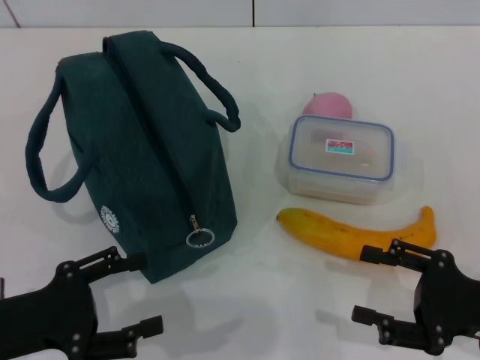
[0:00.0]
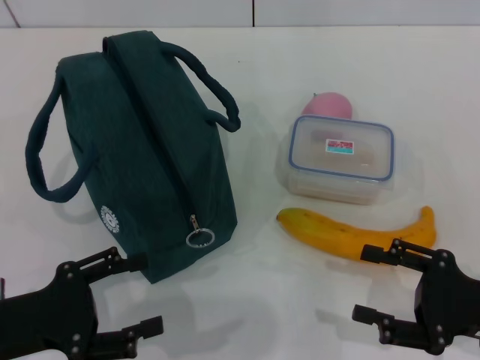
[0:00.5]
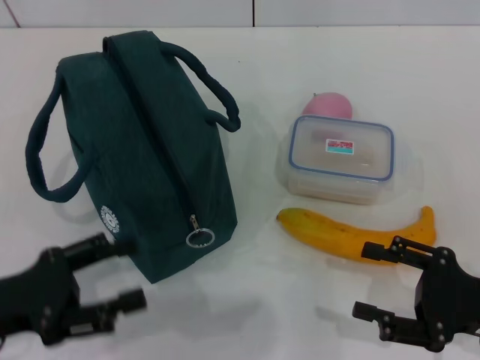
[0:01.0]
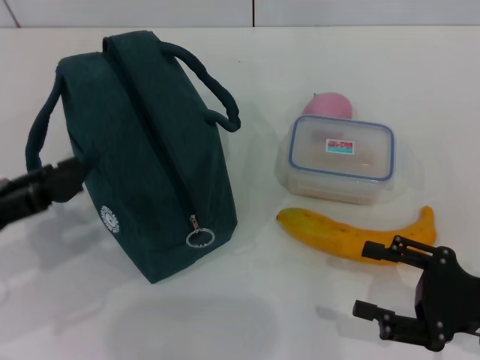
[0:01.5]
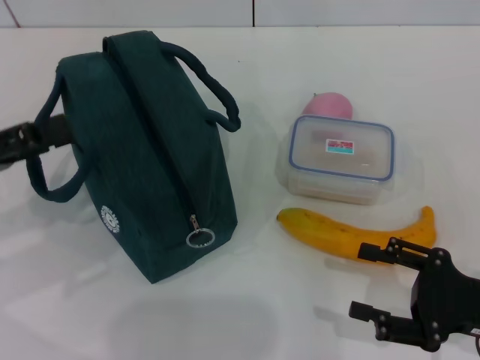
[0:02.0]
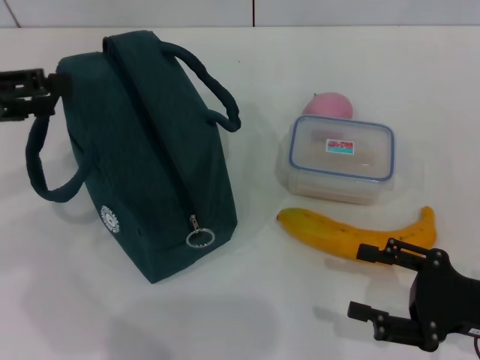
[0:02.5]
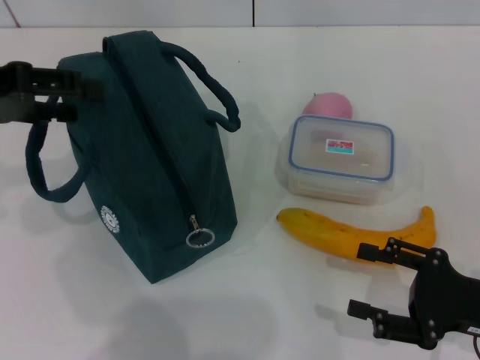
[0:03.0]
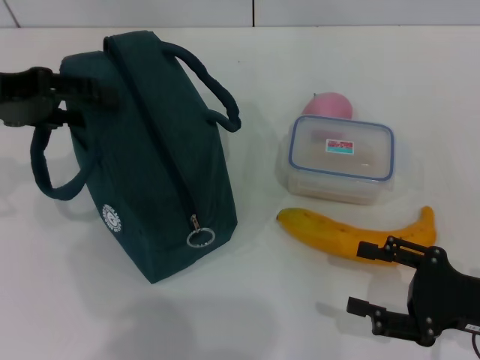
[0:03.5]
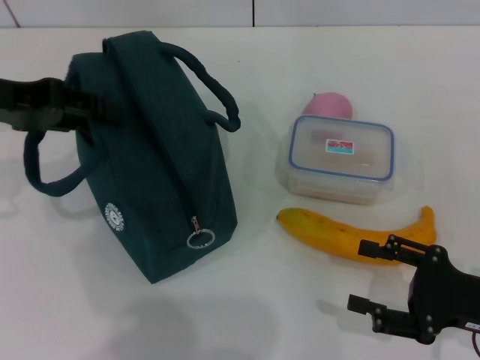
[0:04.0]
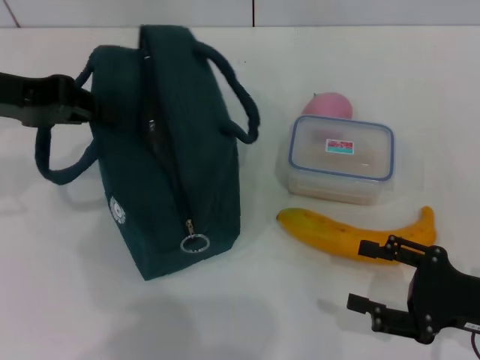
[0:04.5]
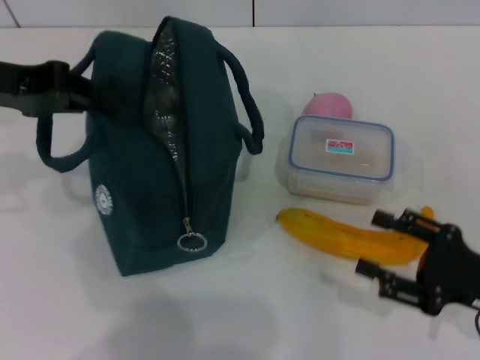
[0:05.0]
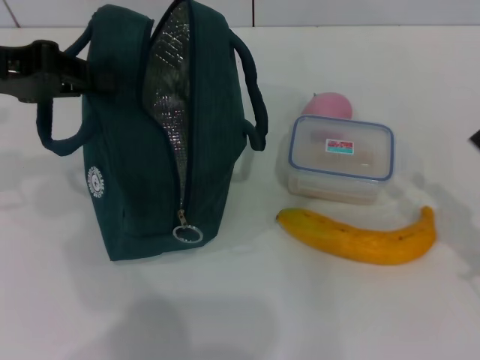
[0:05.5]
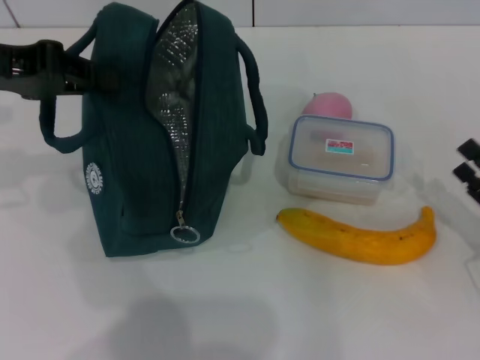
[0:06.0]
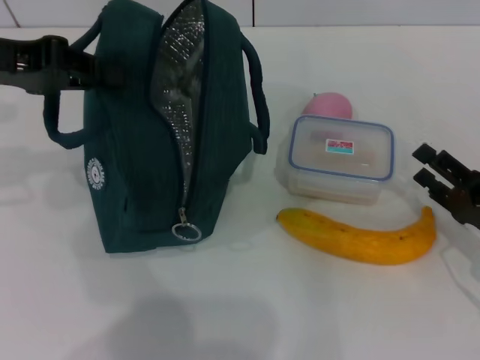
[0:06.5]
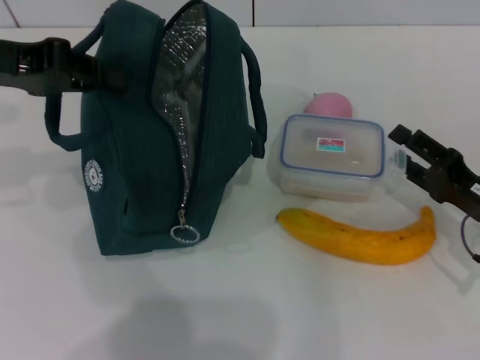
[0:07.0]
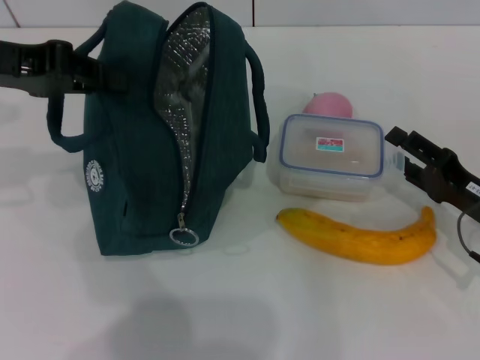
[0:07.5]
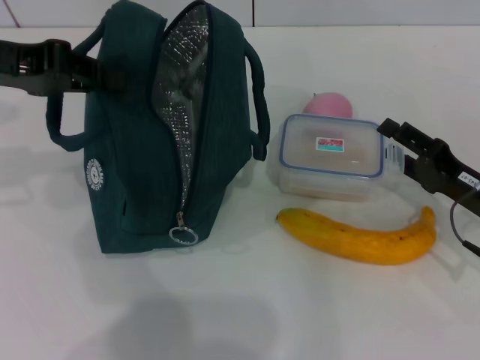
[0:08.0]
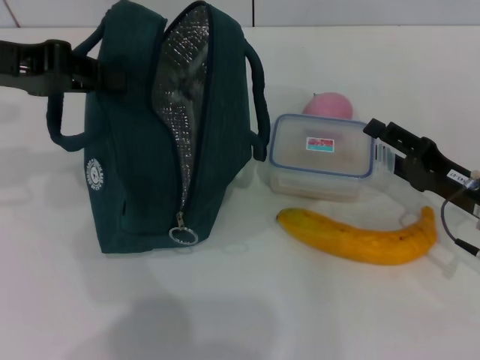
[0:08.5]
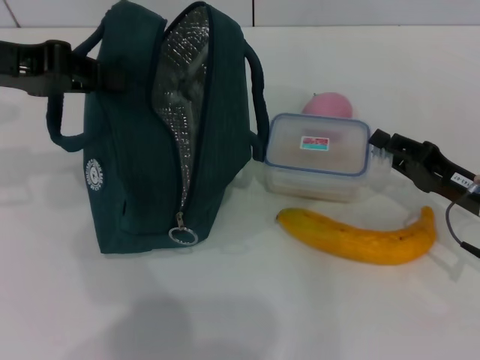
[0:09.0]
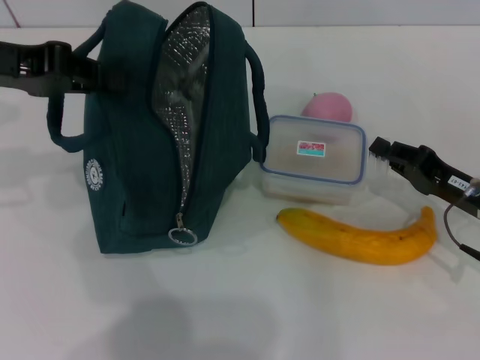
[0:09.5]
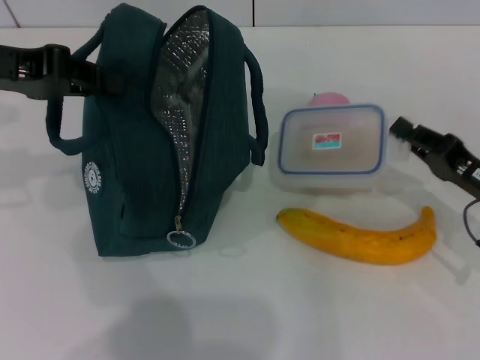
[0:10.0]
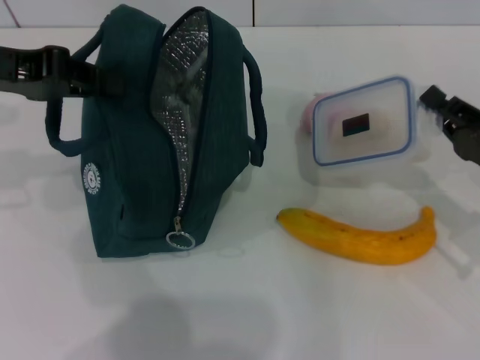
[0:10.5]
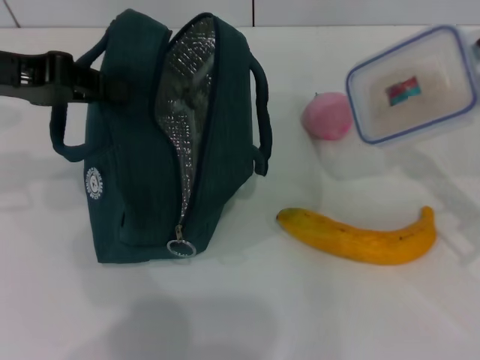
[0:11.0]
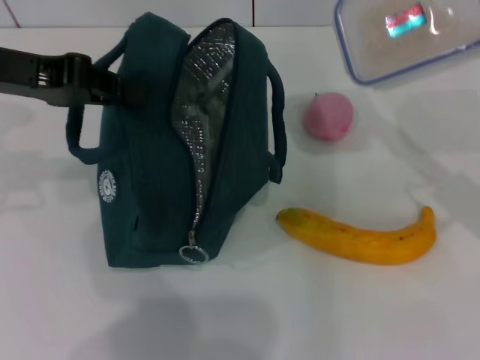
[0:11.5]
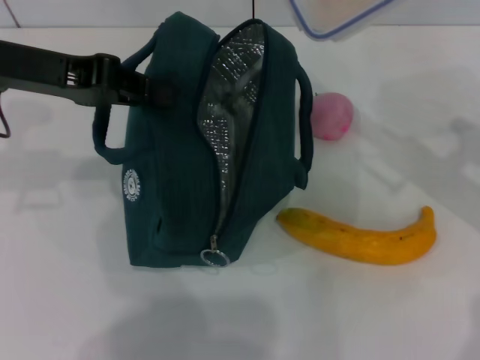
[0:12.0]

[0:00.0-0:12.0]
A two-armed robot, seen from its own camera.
Step, 0.0 to 5.0 s: Hold the lunch bag with your left hand.
Step, 6.0 to 9.0 s: Pick up the lunch box with your right hand.
0.0 to 2.0 s: The left gripper heads upward, forward and to the left, covering some 10 cm.
2.0 to 4.0 s: The left gripper goes roughly 10 cm forward and upward.
4.0 to 6.0 s: The left gripper closes up.
6.0 to 8.0 s: The right gripper travels forward by about 5 cm.
8.0 to 10.0 s: The right gripper closes.
10.0 to 12.0 s: The right gripper shifts roughly 15 cm upward and forward.

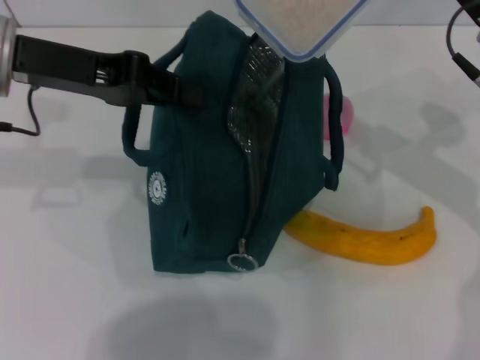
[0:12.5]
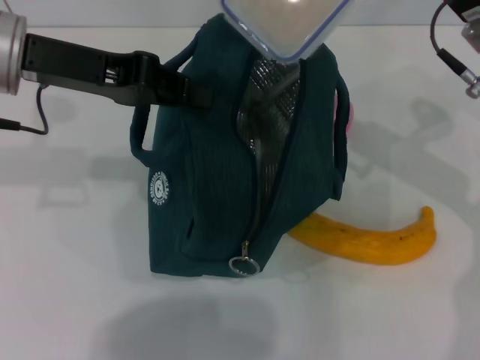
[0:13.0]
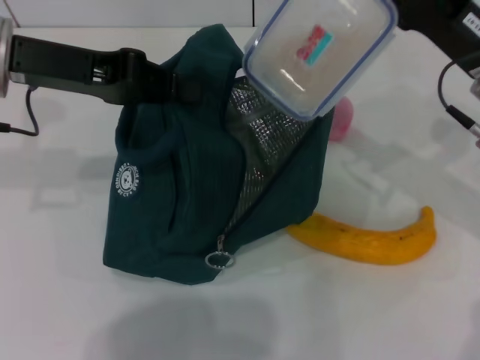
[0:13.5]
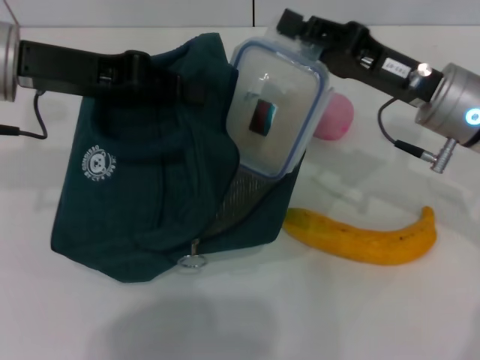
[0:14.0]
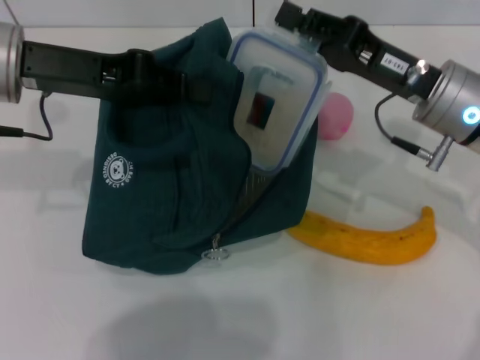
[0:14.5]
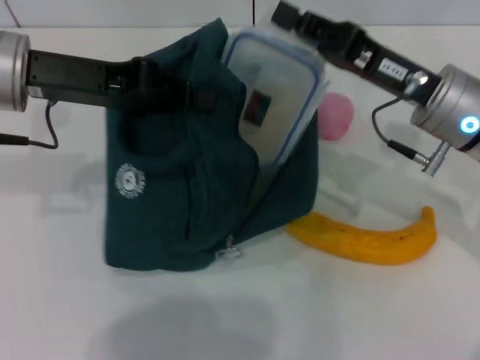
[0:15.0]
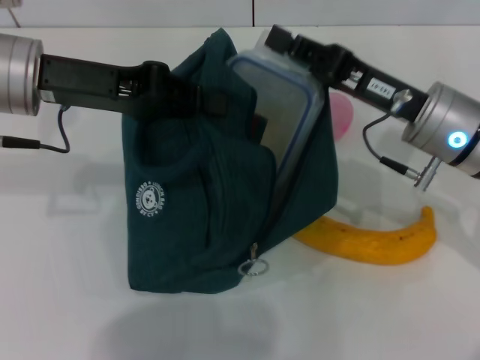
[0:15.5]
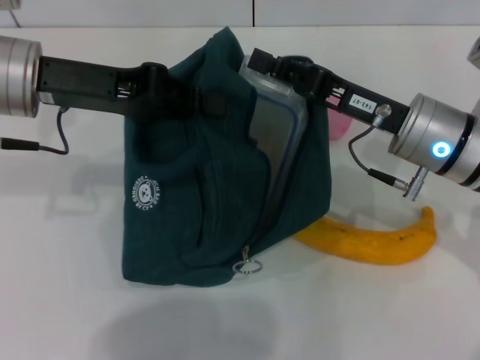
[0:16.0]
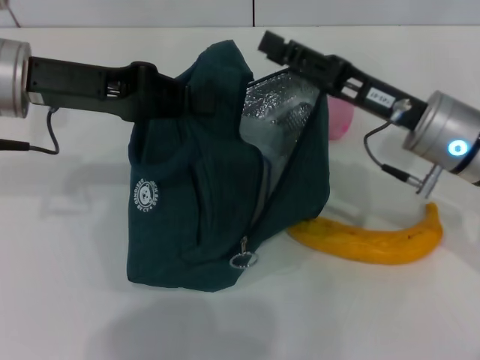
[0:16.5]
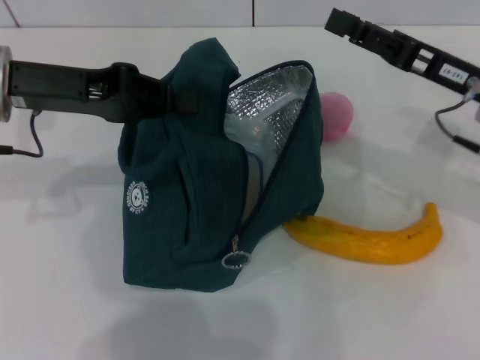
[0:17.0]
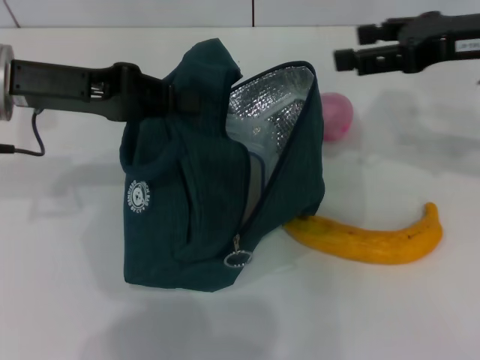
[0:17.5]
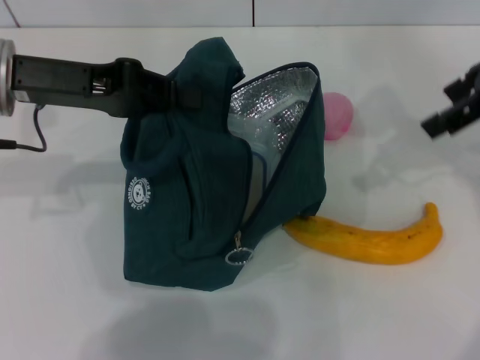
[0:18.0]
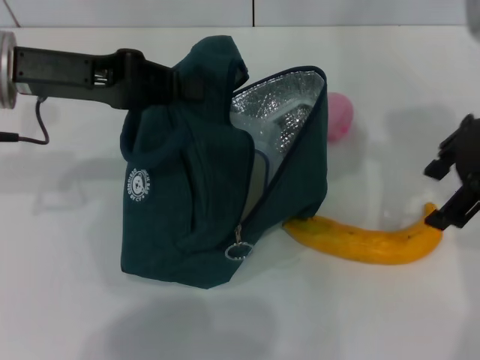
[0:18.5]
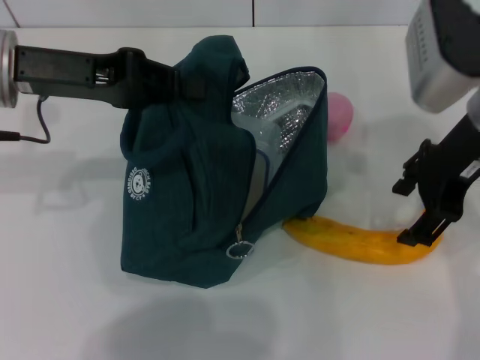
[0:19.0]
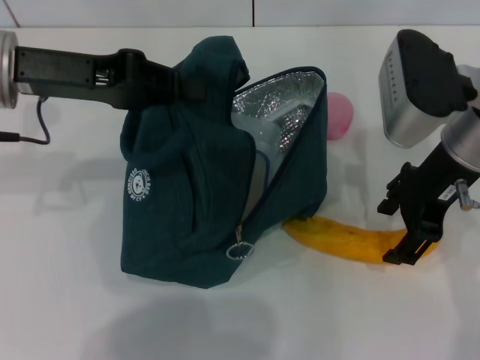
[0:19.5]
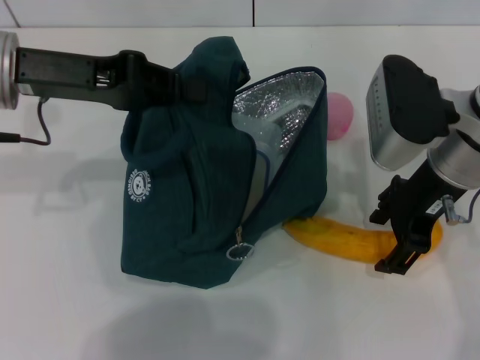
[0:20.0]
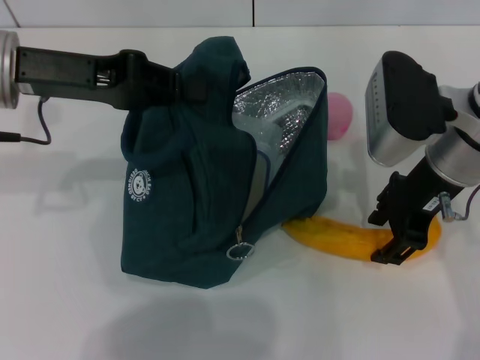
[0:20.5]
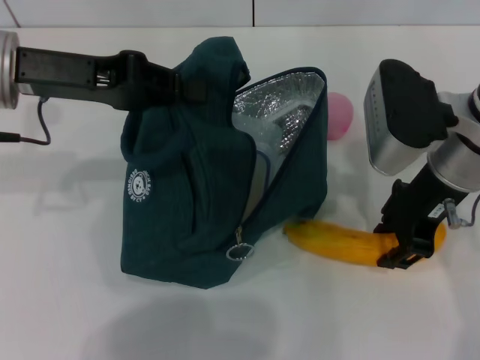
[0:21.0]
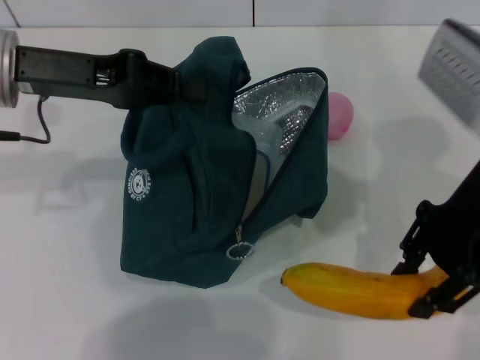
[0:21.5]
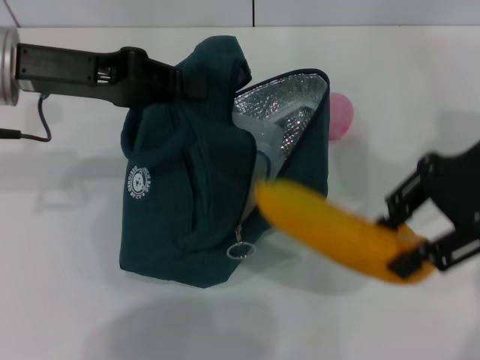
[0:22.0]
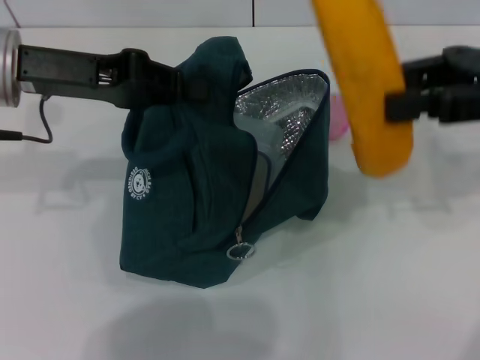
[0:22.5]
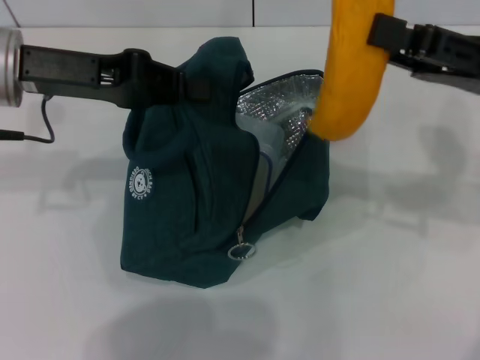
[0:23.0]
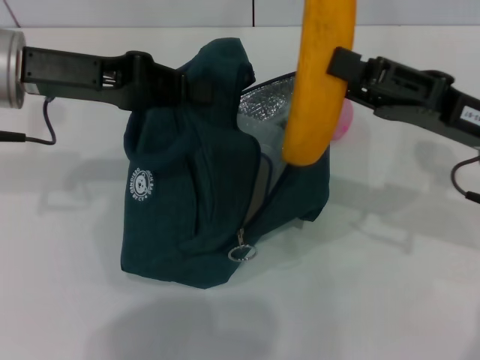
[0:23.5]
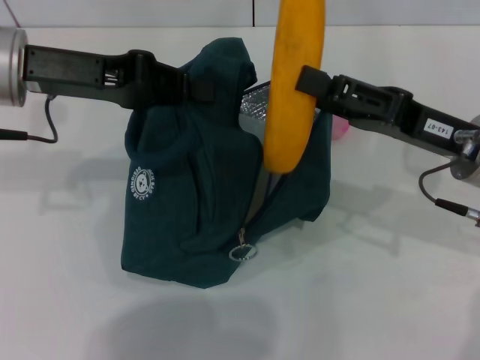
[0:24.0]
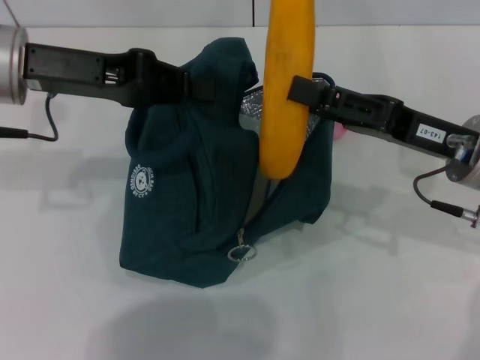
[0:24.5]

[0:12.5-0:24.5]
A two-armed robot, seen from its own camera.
Step, 12.5 to 16.5 s: Place the lunch box into the lunch bag with your right hand.
Step, 17.0 to 20.5 s: Take the banana with your right hand.
12.5 to 14.5 s: The right gripper changes place by about 5 cm.
16.5 to 18.5 s: The right gripper moves upward, roughly 15 cm, and opens.
18.5 to 20.5 s: The right gripper moves downward, some 10 cm.
20.5 to 22.5 s: The right gripper goes approximately 10 cm to the right and upward.
22.5 to 24.5 s: The right gripper travels downward and to the left by about 15 cm.

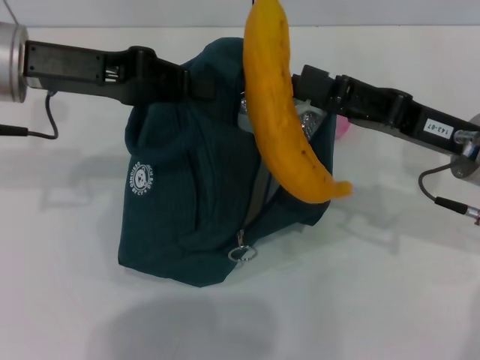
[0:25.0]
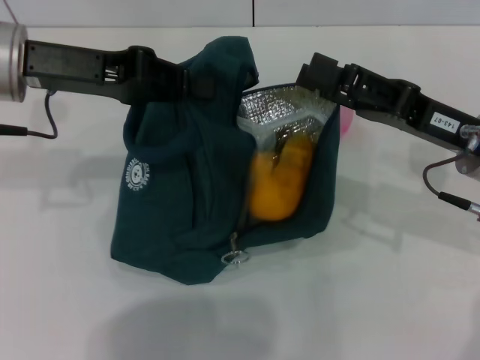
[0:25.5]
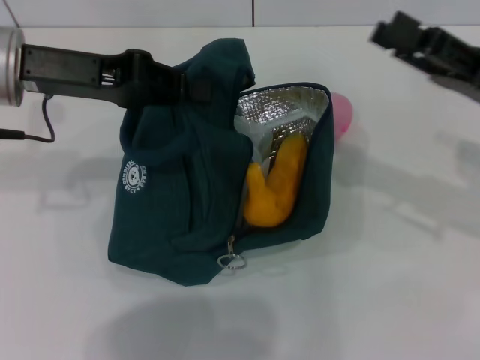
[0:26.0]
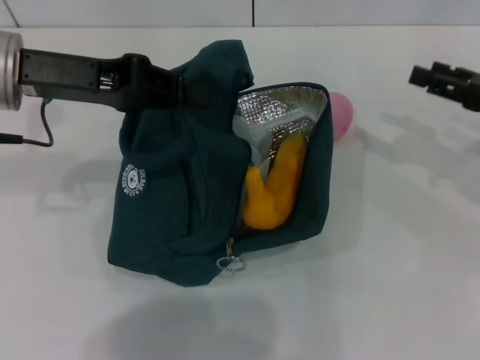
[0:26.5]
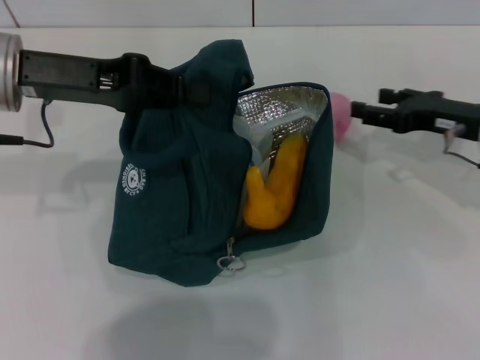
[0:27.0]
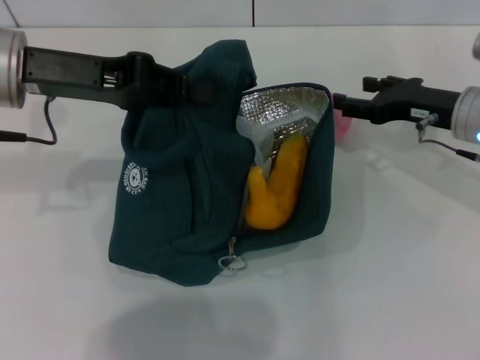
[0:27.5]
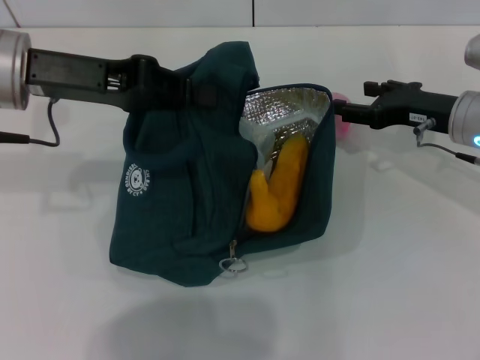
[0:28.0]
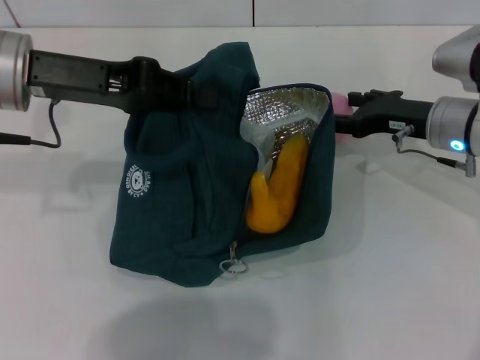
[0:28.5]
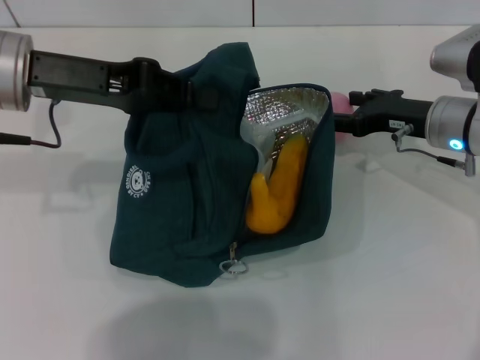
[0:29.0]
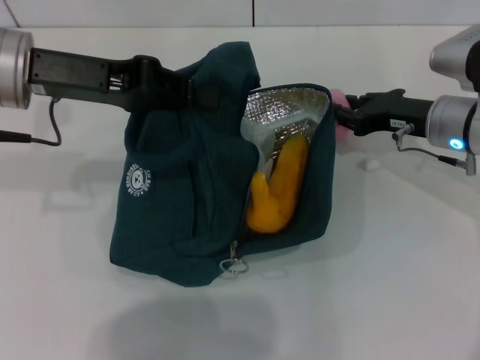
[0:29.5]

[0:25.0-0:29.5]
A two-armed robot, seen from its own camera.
25.0 to 27.0 s: The right gripper is displaced forward and to the right by about 10 cm.
27.0 to 29.5 s: The right gripper shifts by roughly 5 cm.
